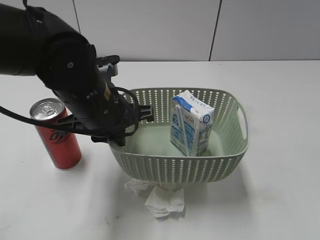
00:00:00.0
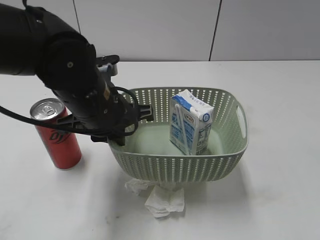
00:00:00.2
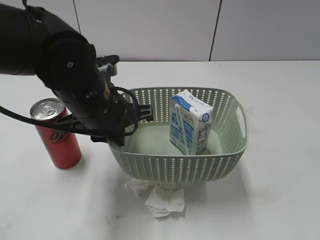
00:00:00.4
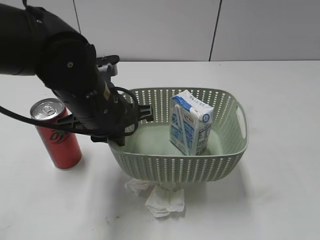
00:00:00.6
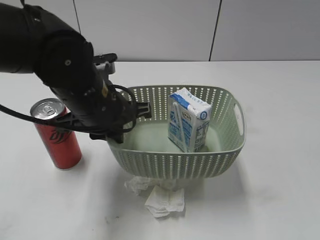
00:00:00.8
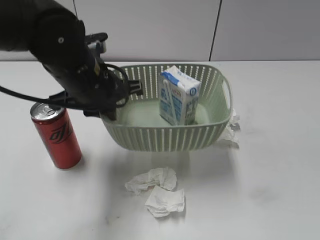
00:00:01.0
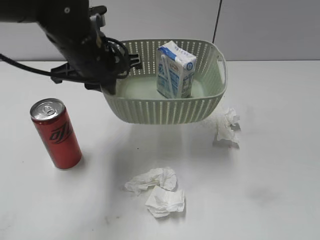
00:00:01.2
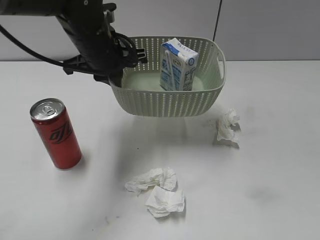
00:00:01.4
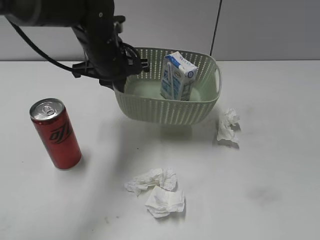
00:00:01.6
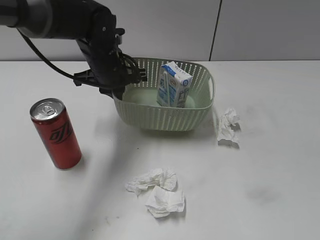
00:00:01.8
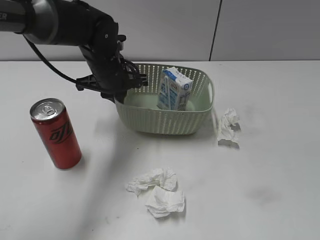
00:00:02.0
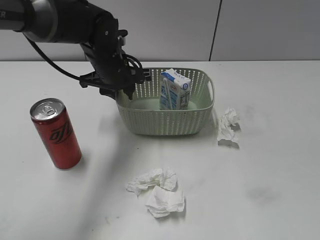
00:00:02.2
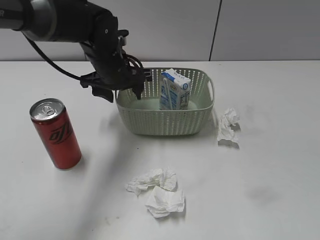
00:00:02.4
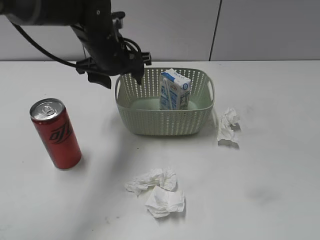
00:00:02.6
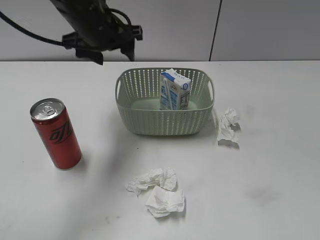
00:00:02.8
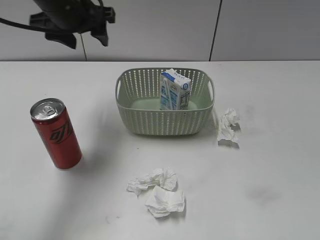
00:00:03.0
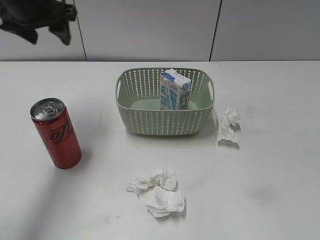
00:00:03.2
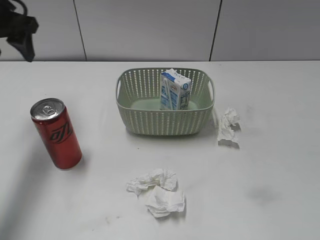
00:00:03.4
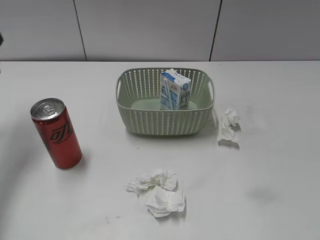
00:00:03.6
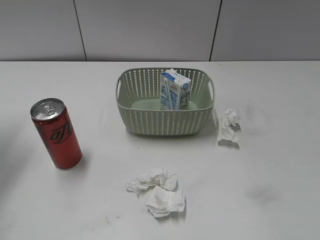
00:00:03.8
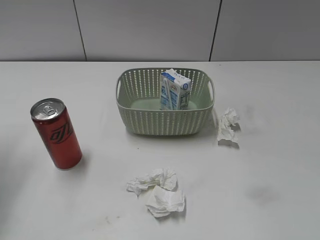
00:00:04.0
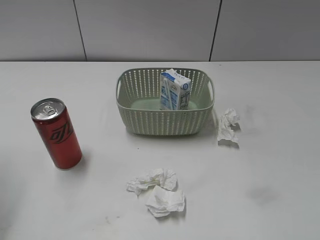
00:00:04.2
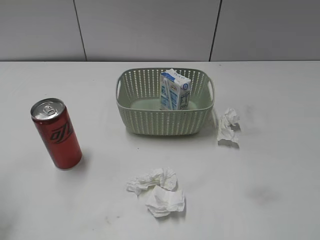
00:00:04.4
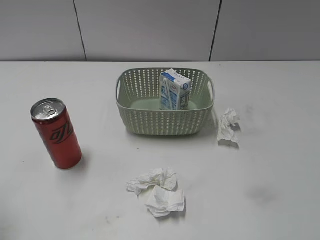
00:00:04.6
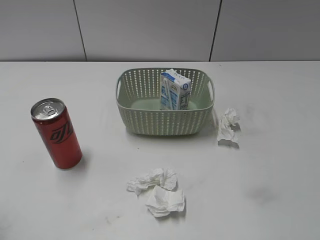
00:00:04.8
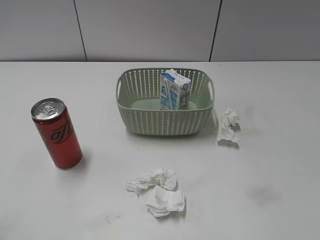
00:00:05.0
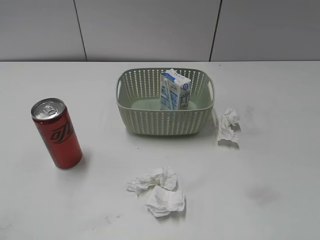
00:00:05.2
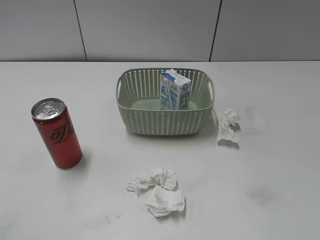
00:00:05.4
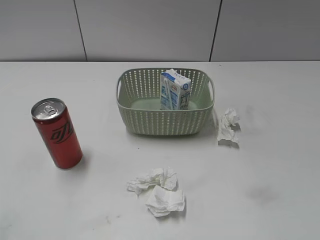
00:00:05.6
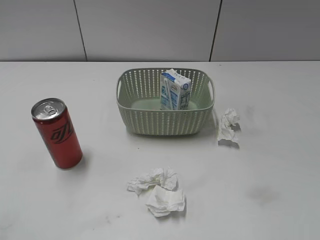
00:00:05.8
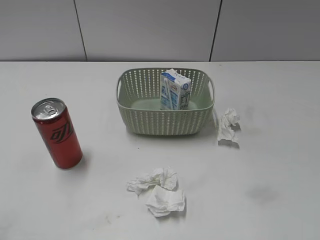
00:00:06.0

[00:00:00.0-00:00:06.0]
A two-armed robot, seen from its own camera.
Step, 00:00:00.0 to 00:00:02.4: Place the basket on the table with left gripper.
00:00:00.0 to 00:00:01.6: The left gripper shifts roughly 15 cm forward; the right gripper heads backward, covering some 10 cm.
00:00:01.6 to 00:00:03.0: The left gripper shifts about 15 cm upward and to the left, and opens up.
00:00:03.0 to 00:00:04.4: The left gripper moves backward and to the left, approximately 25 cm.

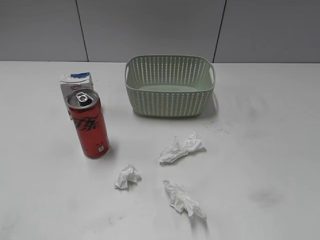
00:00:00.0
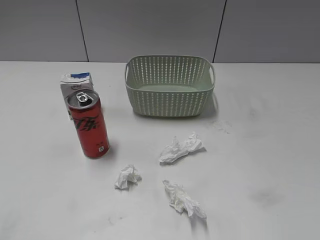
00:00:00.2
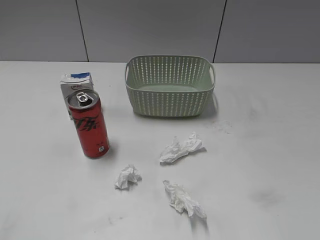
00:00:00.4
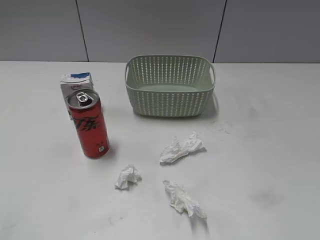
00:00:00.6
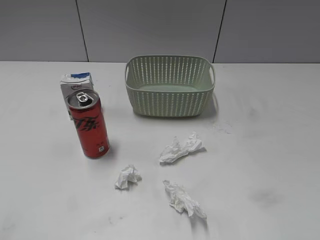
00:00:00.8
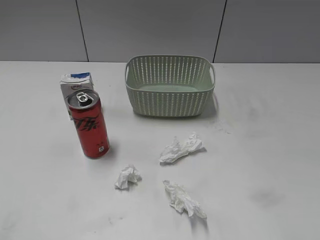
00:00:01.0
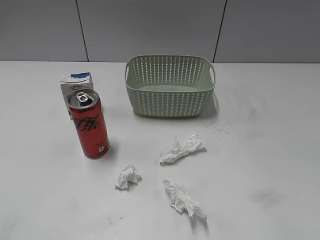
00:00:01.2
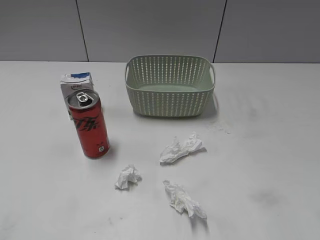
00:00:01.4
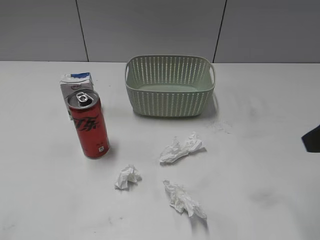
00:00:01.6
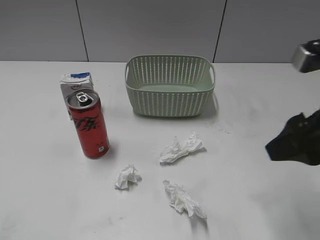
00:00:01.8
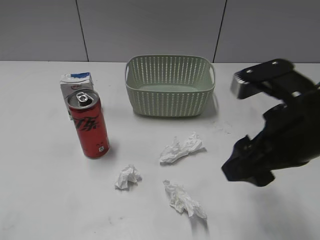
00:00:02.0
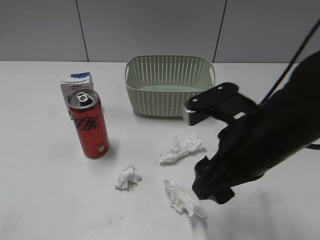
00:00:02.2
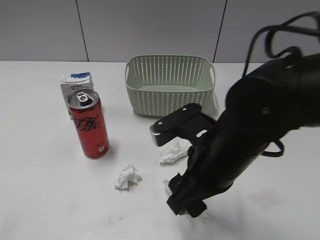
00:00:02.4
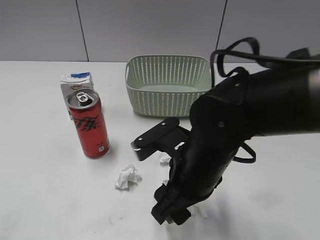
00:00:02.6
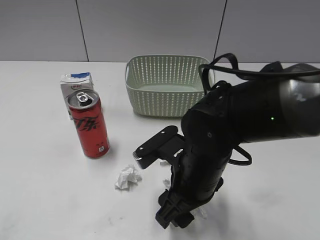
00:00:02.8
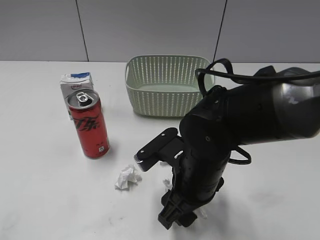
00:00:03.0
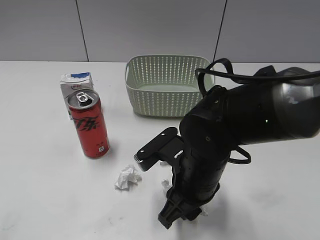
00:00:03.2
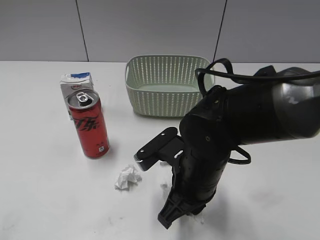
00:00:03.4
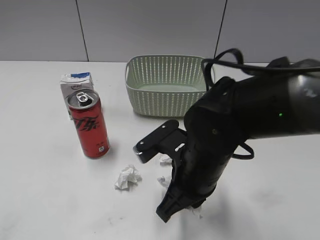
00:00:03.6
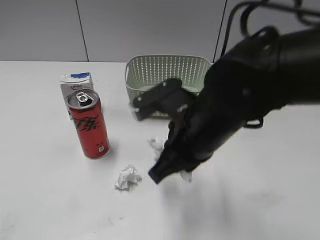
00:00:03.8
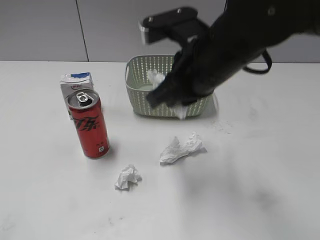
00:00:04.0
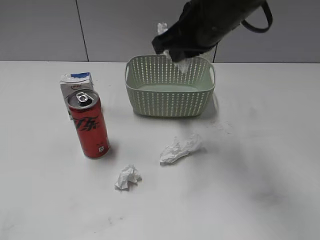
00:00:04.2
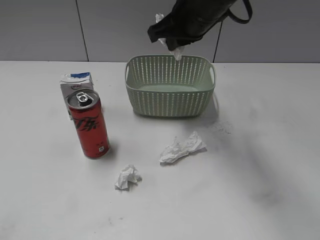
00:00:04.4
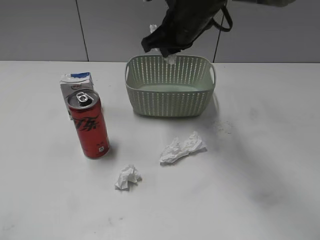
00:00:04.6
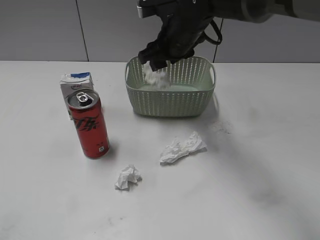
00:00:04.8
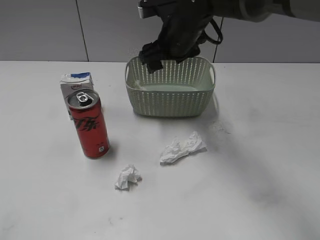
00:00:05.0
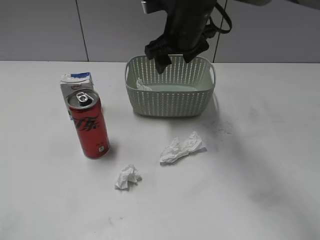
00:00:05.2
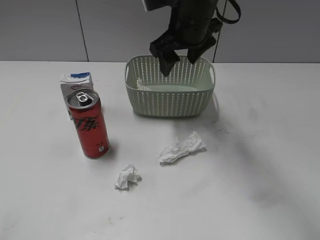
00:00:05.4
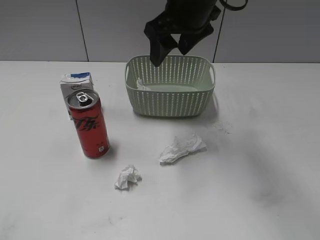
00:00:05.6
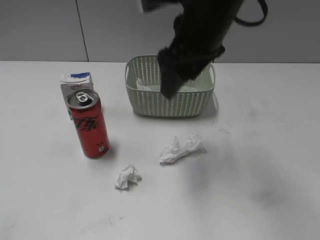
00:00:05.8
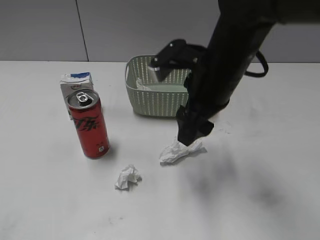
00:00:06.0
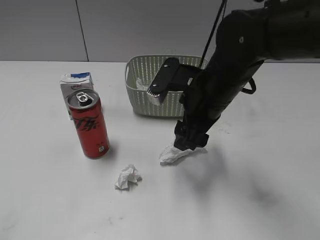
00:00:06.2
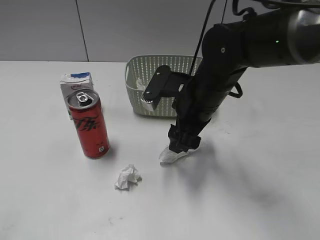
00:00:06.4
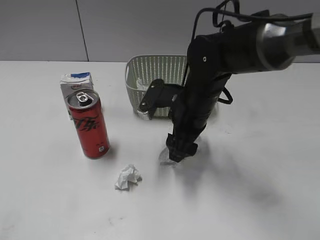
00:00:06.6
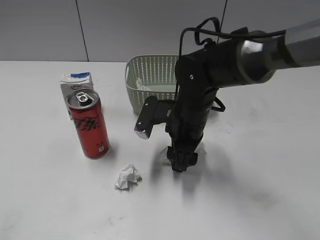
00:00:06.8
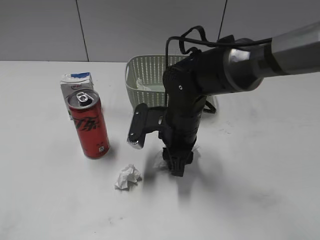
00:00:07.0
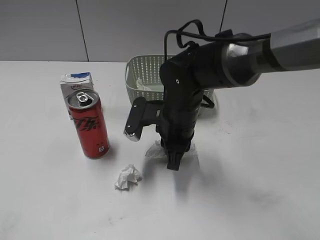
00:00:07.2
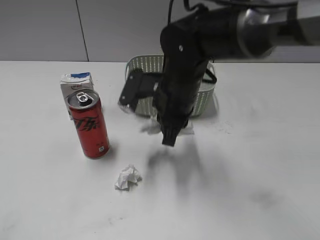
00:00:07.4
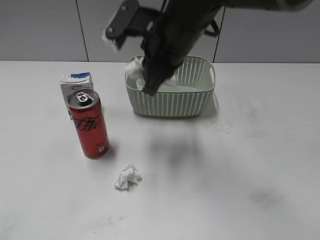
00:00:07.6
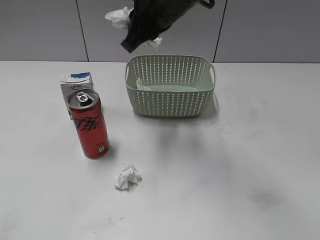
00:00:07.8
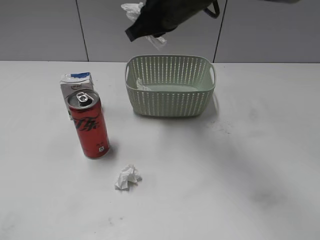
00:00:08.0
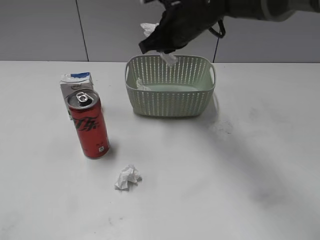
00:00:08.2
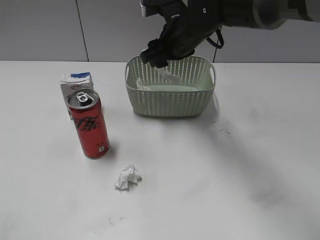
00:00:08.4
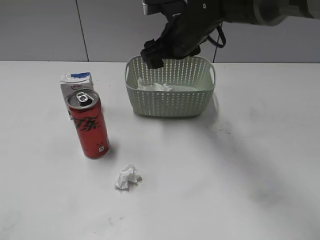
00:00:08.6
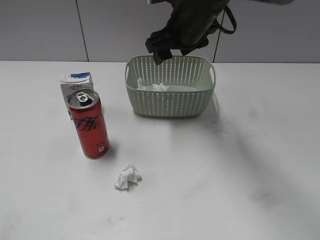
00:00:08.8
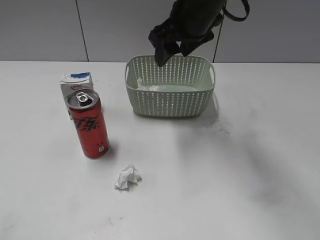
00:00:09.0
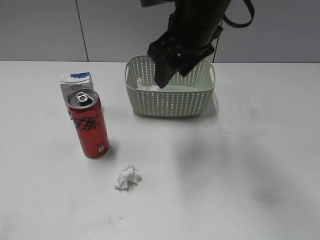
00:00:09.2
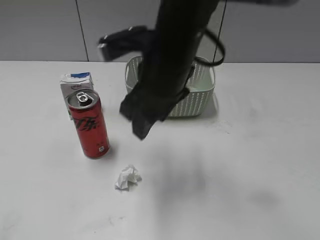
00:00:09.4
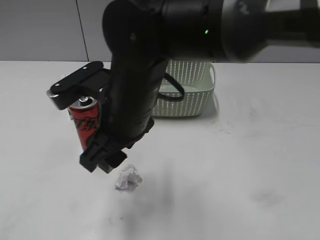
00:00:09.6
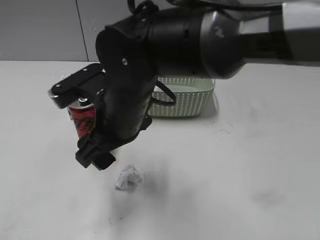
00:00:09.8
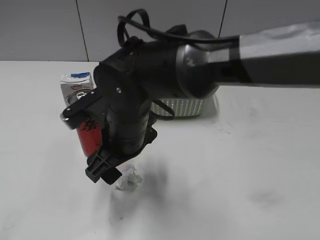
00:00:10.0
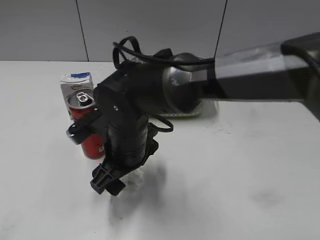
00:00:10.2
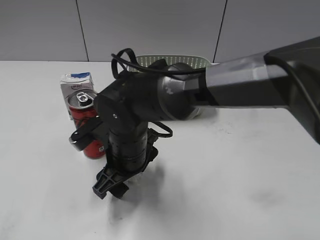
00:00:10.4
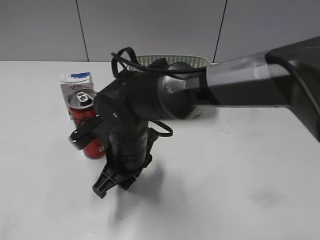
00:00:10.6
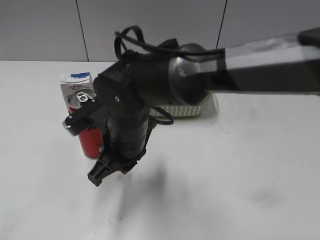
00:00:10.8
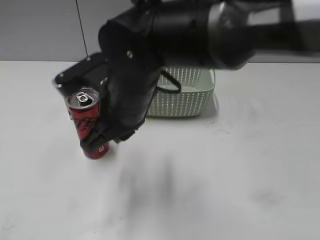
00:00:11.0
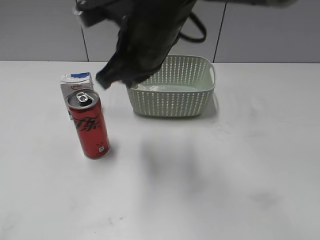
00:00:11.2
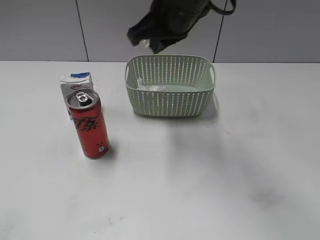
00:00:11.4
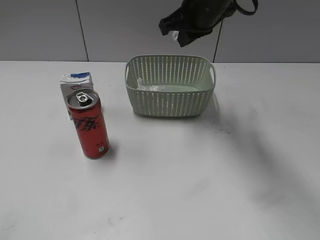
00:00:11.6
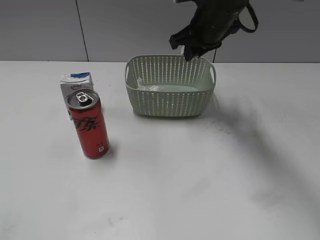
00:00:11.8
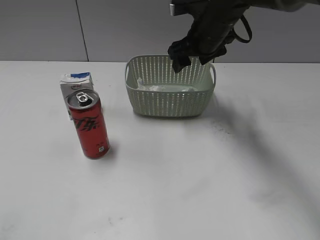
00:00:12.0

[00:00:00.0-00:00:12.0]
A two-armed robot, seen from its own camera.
Step, 00:00:01.6 to 00:00:03.4: Grasp the waste paper with right gripper.
Step, 00:00:03.6 to 00:00:05.0: Place the waste paper in the basket with right gripper.
Step, 00:00:05.2 to 00:00:07.2: Grasp the waste paper with right gripper.
Step, 00:00:07.4 to 00:00:08.6: Place the waste paper in the basket with right gripper.
Step, 00:00:08.8 to 00:00:10.8: Grasp the waste paper with right gripper.
00:00:01.6 to 00:00:03.0: The right gripper travels to the left and downward by some 25 cm.
00:00:03.0 to 00:00:04.4: The right gripper travels forward and upward by some 25 cm, and closes up.
00:00:04.4 to 00:00:06.0: The right gripper is displaced backward by some 10 cm, and opens up.
00:00:06.0 to 00:00:07.6: The right gripper travels to the left by roughly 5 cm, moves some 10 cm downward and comes back, and closes.
00:00:07.6 to 00:00:09.0: The right gripper goes about 5 cm forward, and opens.
00:00:09.0 to 00:00:10.4: The right gripper shifts roughly 25 cm downward, backward and to the left.
00:00:10.4 to 00:00:12.0: The right gripper moves forward, to the right and upward, about 25 cm, and closes and opens again.

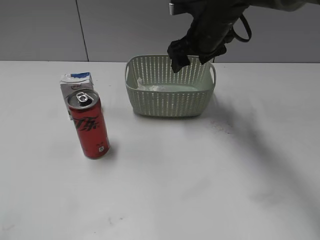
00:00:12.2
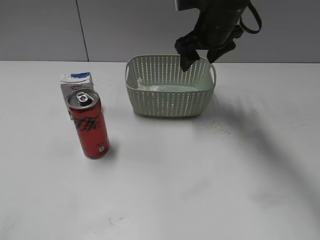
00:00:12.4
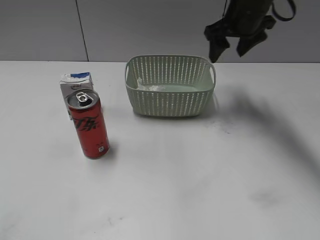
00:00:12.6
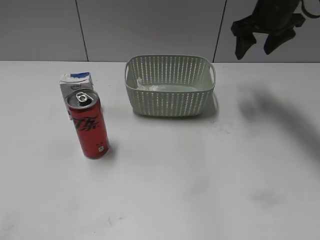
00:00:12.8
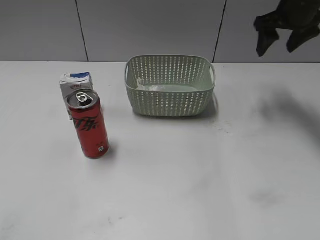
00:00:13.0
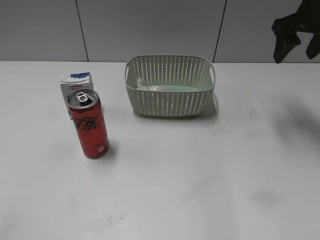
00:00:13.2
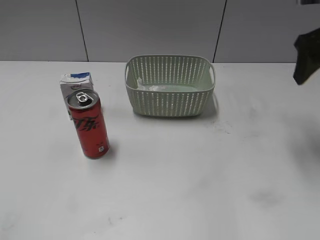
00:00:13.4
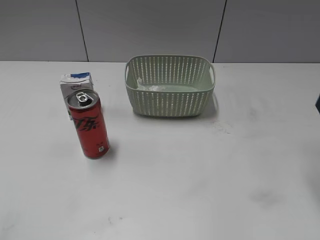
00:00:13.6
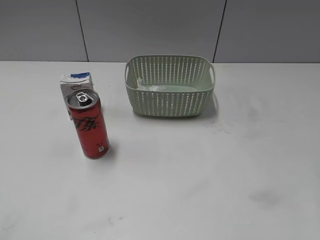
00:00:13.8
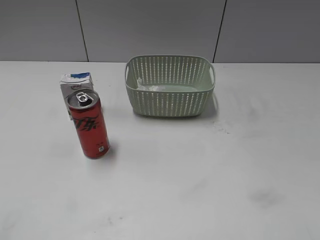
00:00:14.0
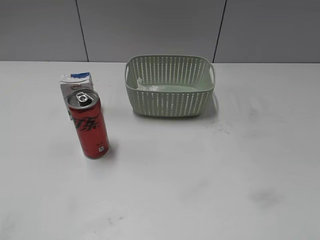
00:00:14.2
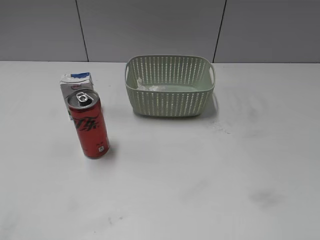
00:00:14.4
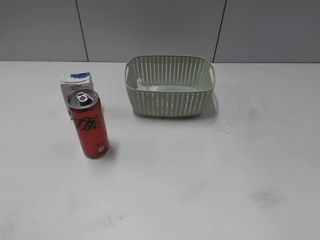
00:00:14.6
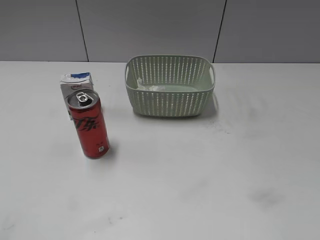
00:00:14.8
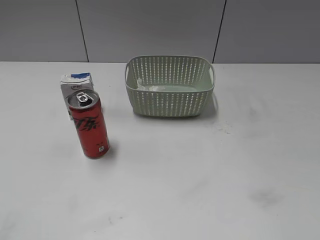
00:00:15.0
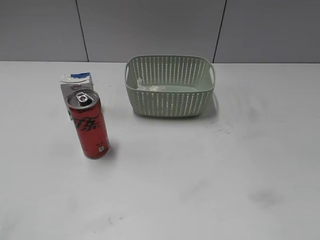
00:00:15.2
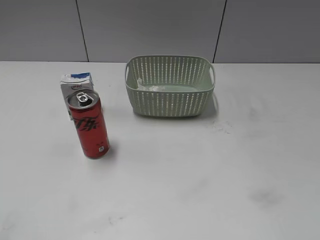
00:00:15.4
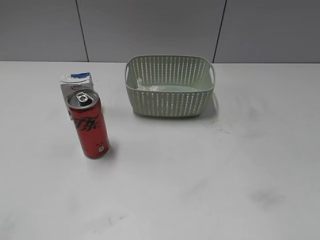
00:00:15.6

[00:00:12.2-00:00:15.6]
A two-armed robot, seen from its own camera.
00:00:12.2 to 00:00:13.8: The right gripper moves backward and to the right, some 30 cm.
